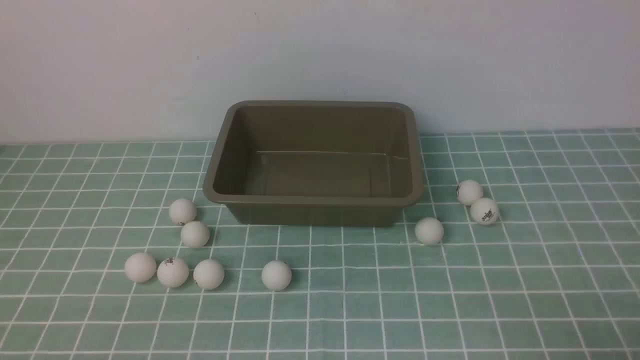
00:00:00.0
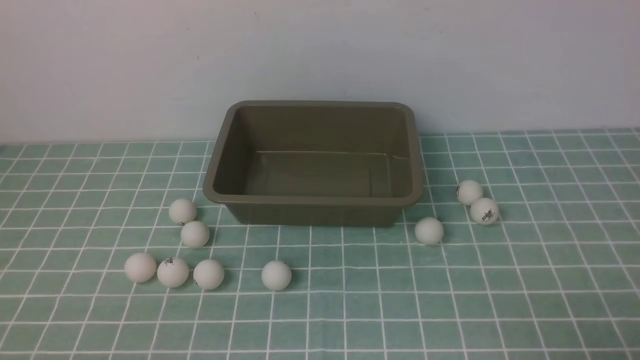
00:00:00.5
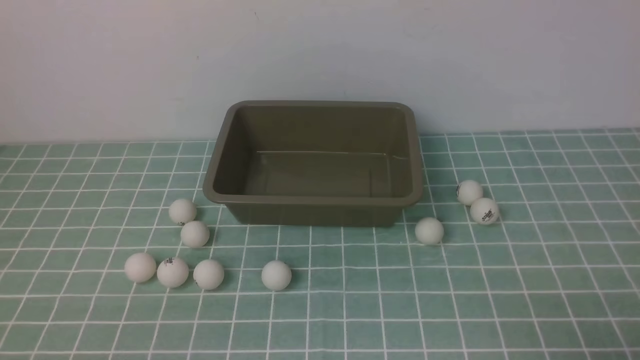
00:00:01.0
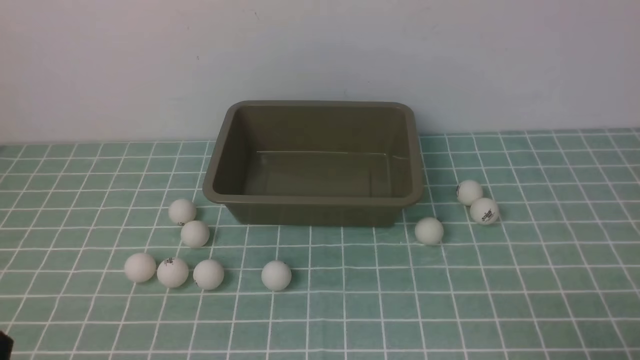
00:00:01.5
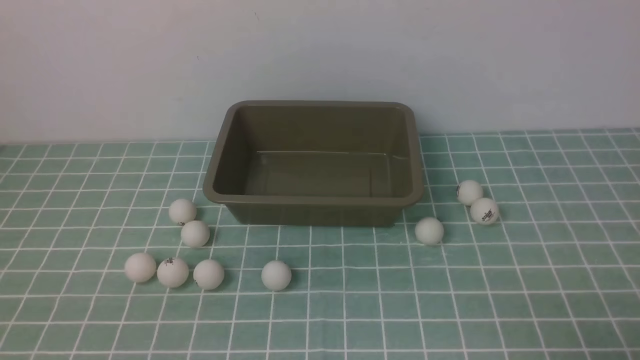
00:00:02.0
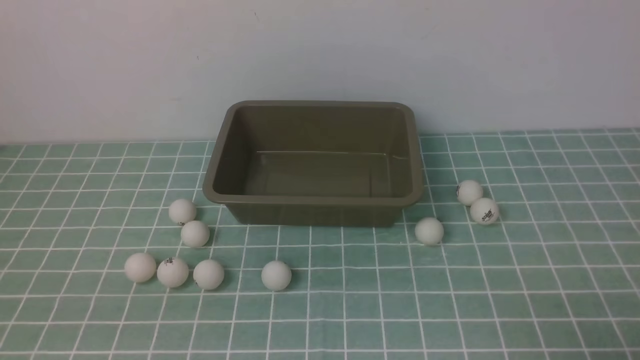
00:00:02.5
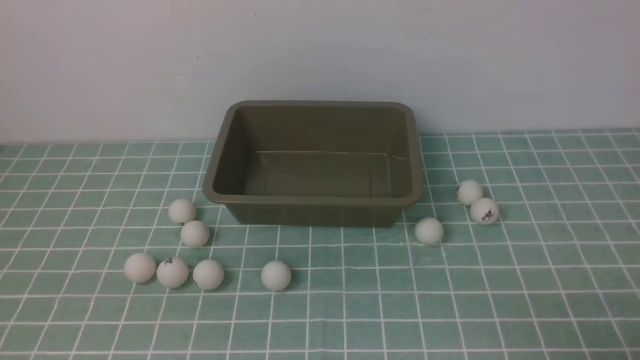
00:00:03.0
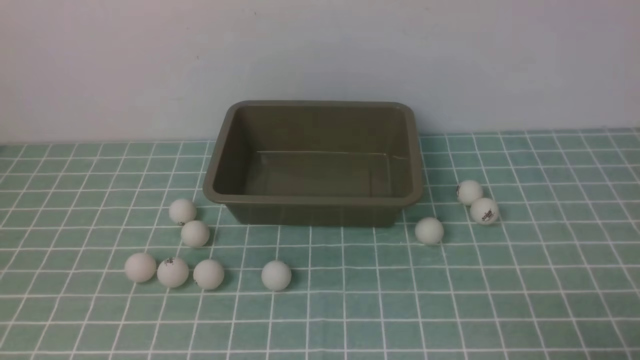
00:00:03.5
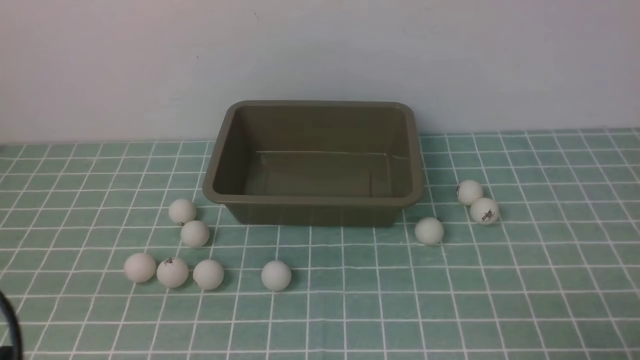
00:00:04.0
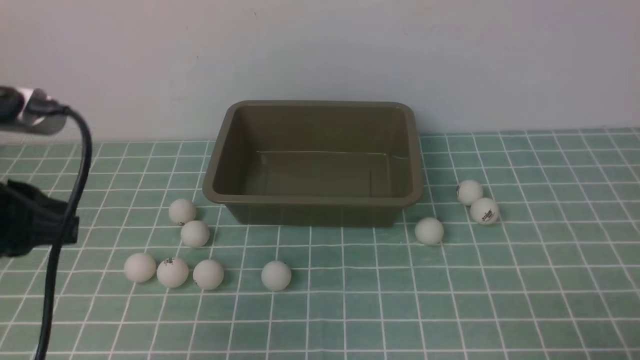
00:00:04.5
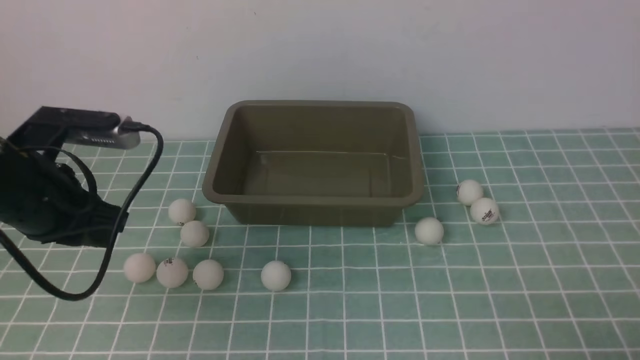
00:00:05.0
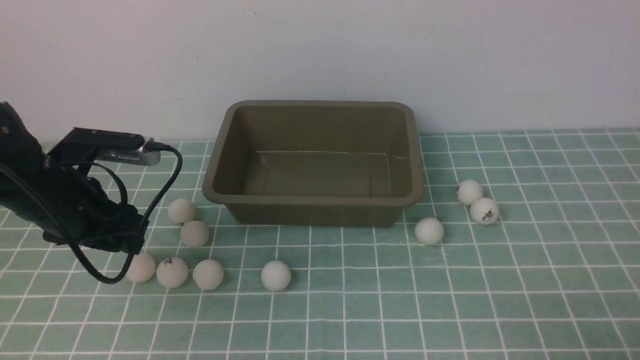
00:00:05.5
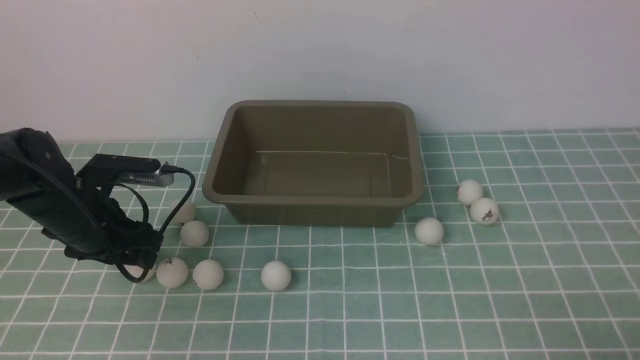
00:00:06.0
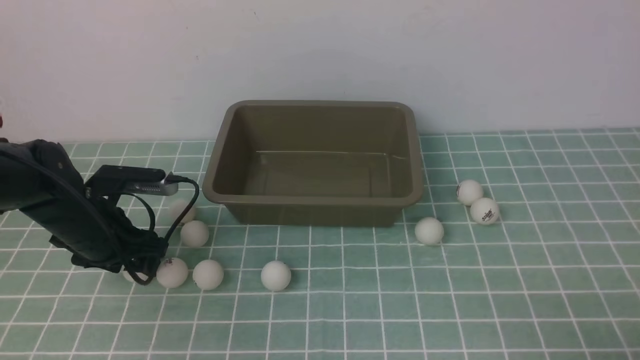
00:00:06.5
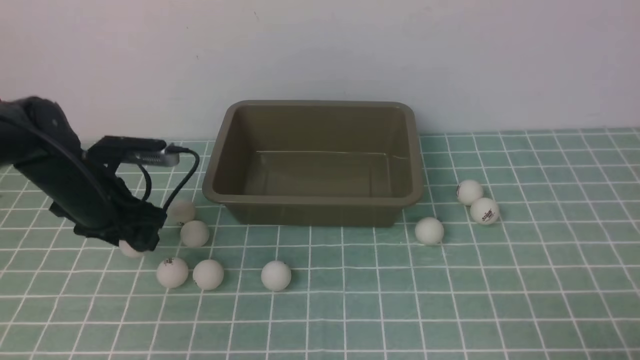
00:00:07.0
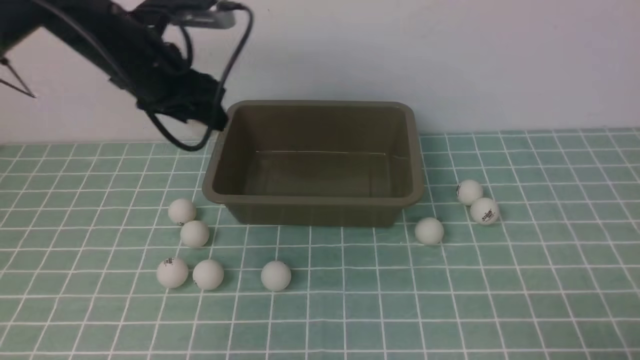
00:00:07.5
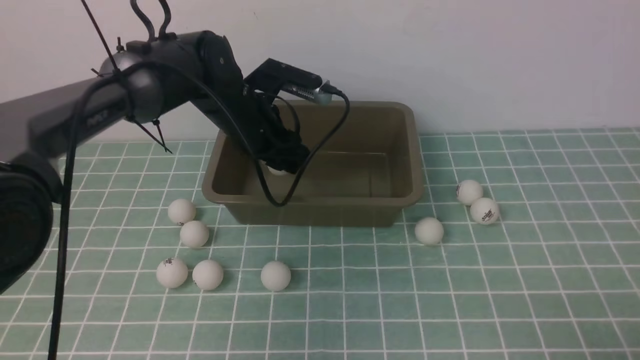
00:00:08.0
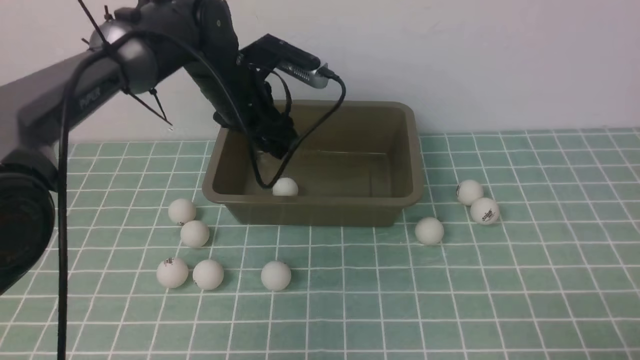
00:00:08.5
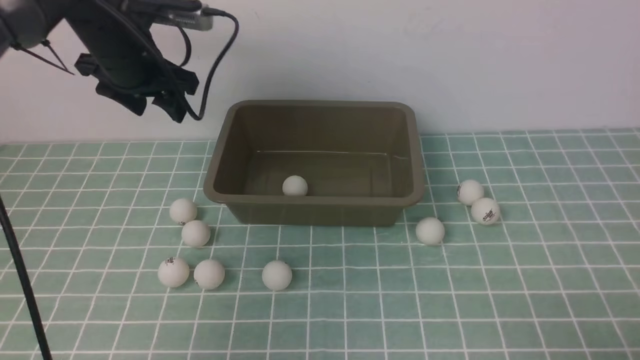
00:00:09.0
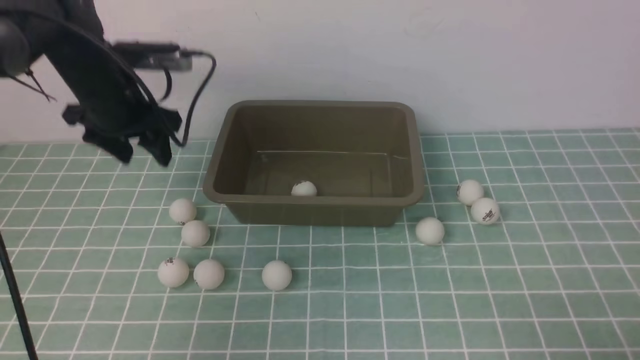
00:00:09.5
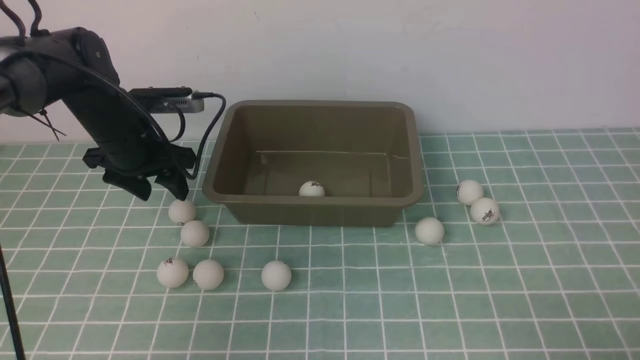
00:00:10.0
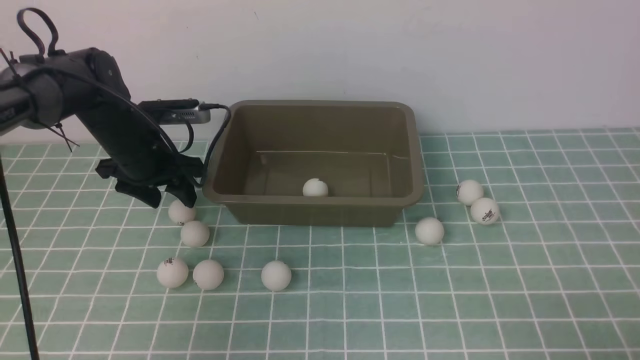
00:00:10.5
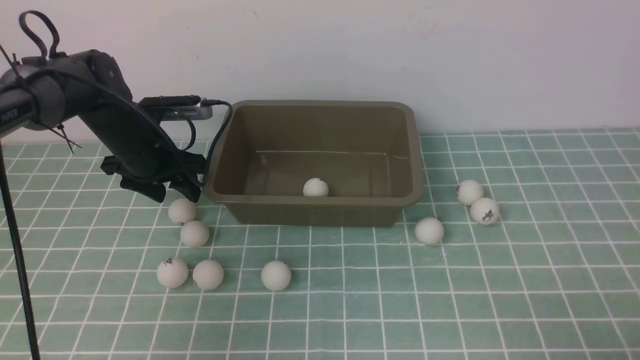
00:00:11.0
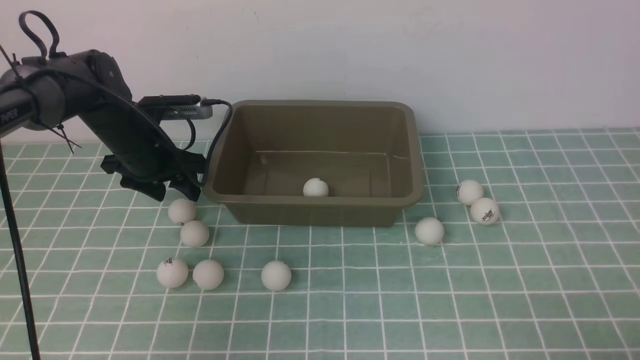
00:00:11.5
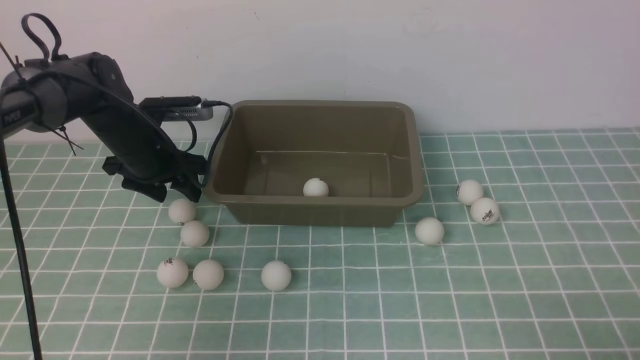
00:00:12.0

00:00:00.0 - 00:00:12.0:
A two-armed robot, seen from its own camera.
Step, 00:00:00.0 - 00:00:07.0: use the left arm to clamp the table tennis ball closest to it.
Step, 00:00:07.5 - 00:00:08.0: use the left arm to put the table tennis ball into the box.
00:00:04.0 - 00:00:06.0: The left gripper heads forward and downward, covering about 30 cm, and opens its fingers.
00:00:06.0 - 00:00:08.0: The left gripper is displaced to the right, forward and upward by roughly 20 cm.
00:00:08.0 - 00:00:10.0: The left gripper moves to the left, roughly 15 cm.
00:00:10.0 - 00:00:12.0: The grippers move only a little.

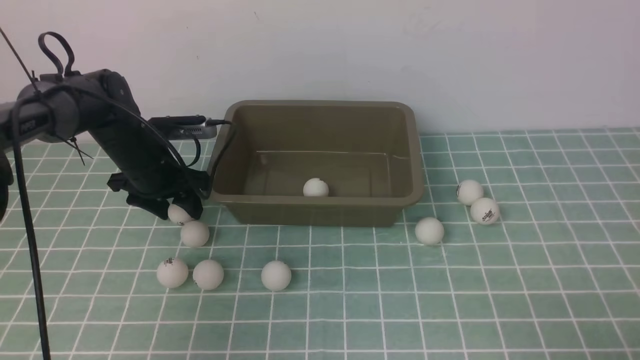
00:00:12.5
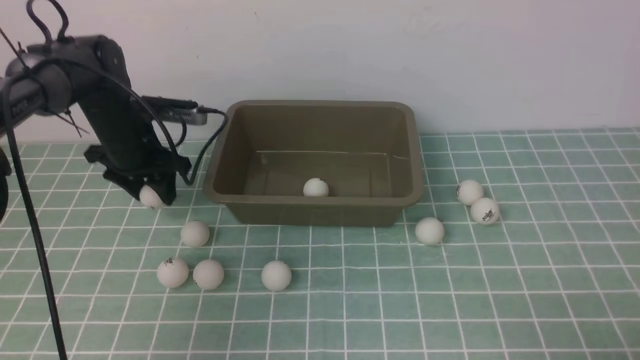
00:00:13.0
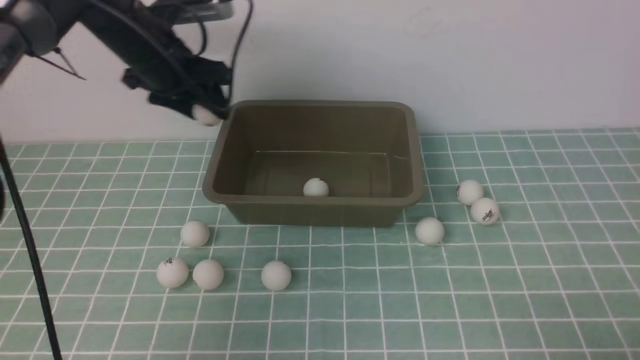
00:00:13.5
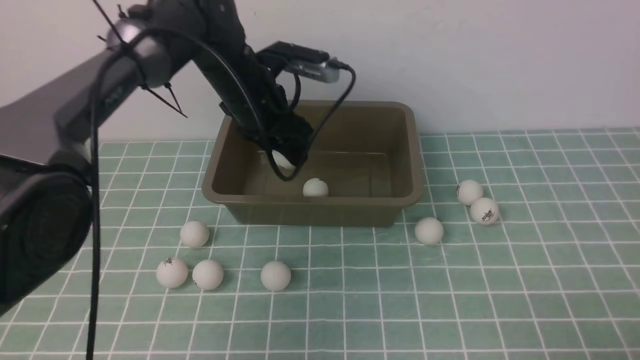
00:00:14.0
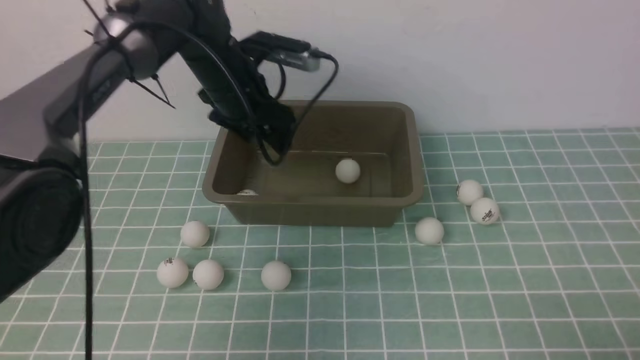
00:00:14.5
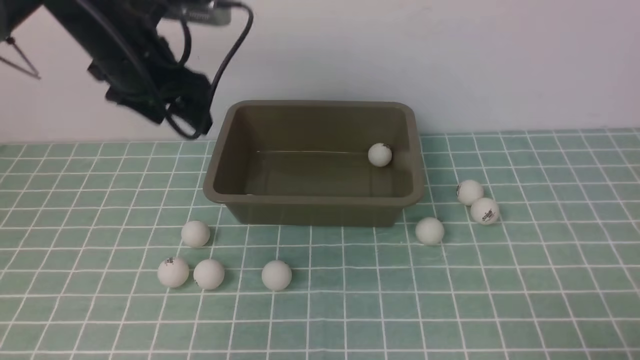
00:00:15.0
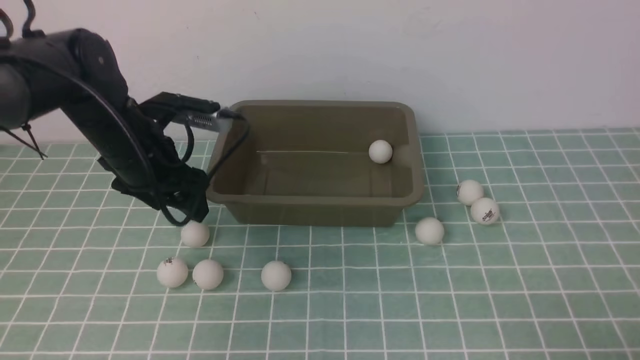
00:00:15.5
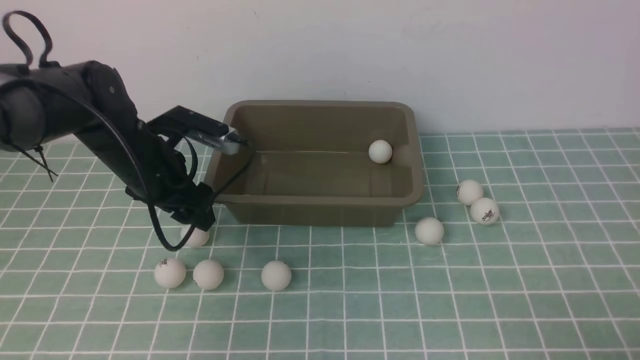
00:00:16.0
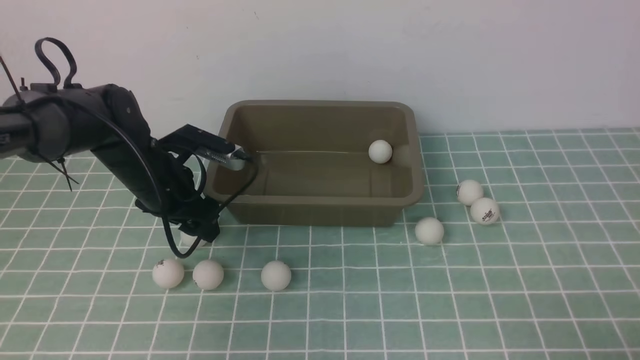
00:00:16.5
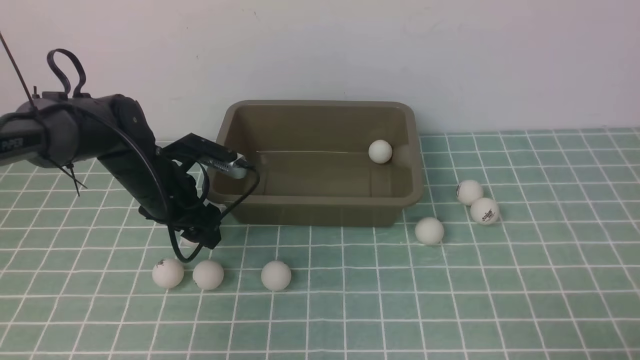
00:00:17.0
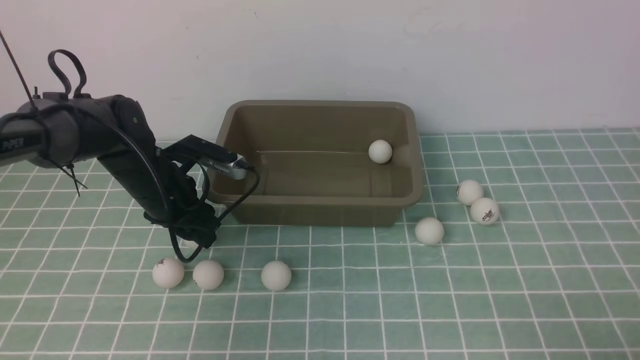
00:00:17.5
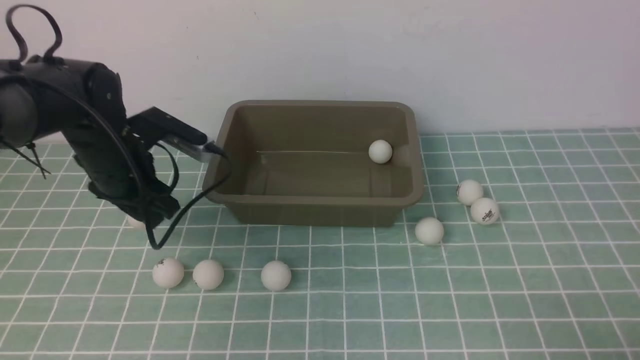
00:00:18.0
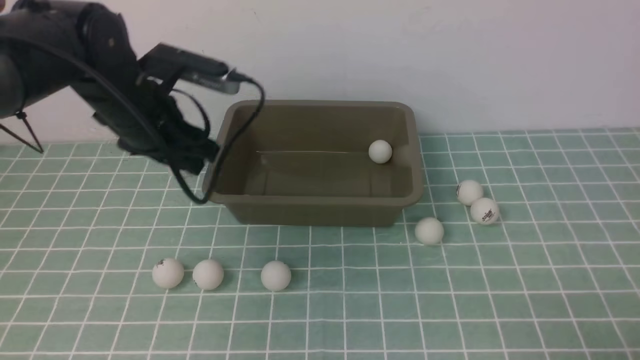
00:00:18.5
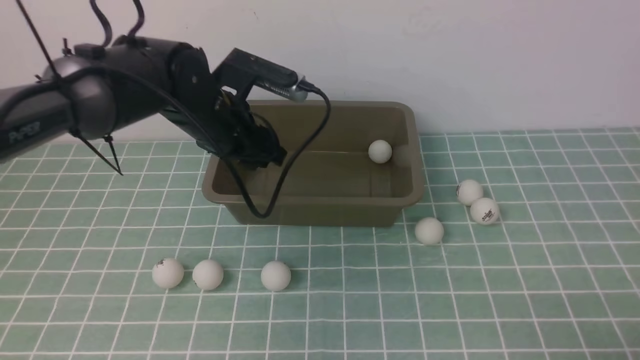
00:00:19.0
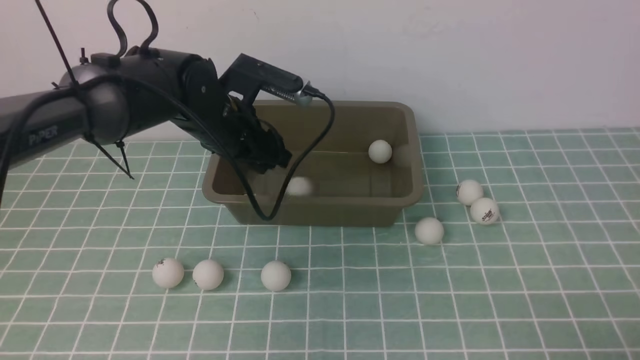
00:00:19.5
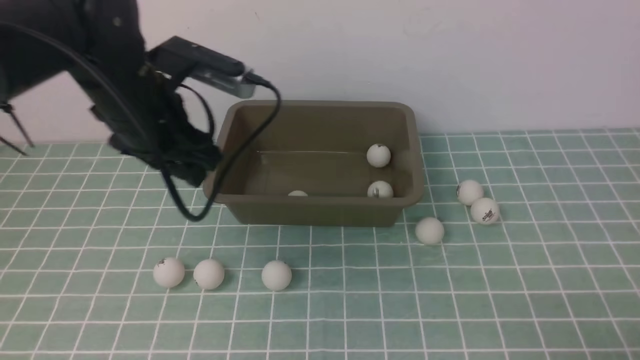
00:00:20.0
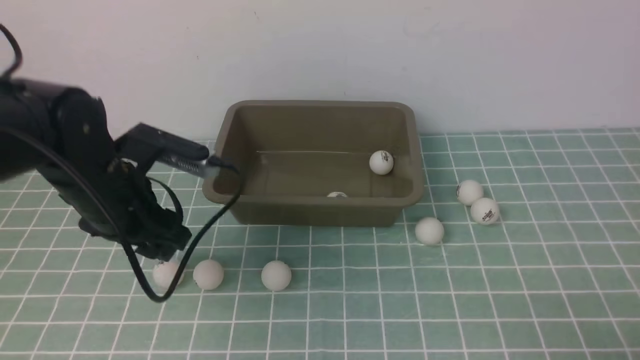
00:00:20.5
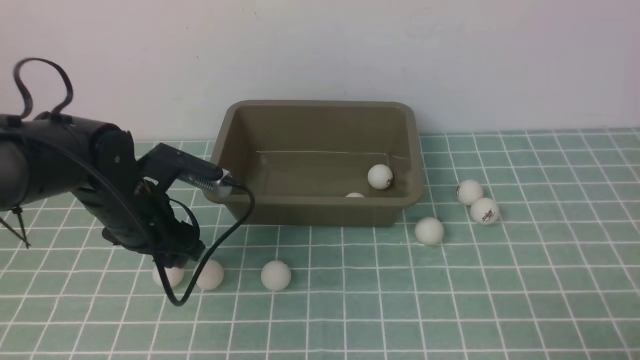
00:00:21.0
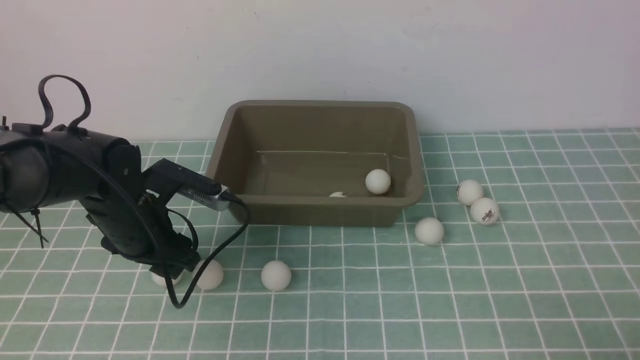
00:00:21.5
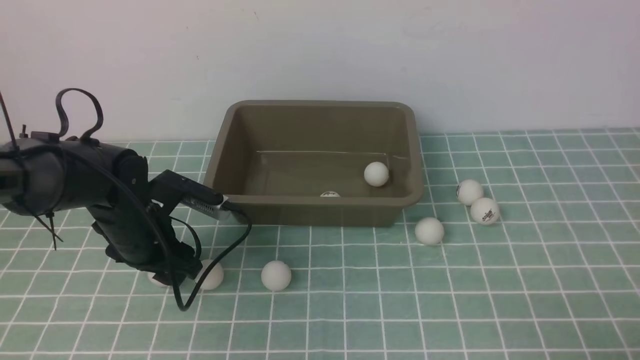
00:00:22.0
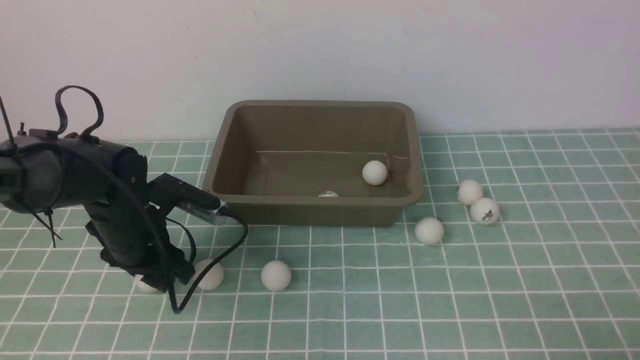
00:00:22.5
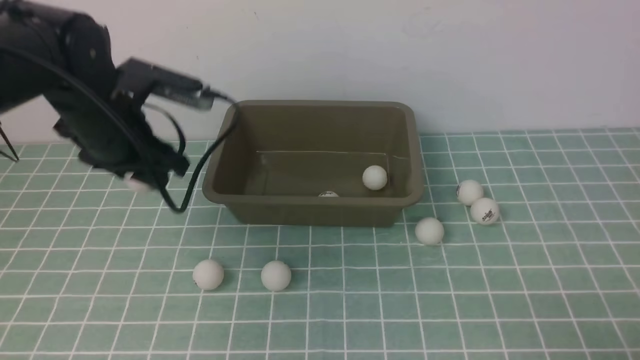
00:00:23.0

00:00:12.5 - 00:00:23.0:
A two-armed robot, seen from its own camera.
Step, 00:00:13.5 - 00:00:14.0: use the left arm to put the table tennis ball into the box.
Step, 00:00:15.0 - 00:00:17.5: use the left arm to clamp the table tennis ball closest to it.
Step, 00:00:18.0 - 00:00:19.5: use the left arm to put the table tennis ball into the box.
Step, 00:00:20.0 - 00:00:22.5: use the left arm to clamp the table tennis ball closest to it.
00:00:12.5 - 00:00:14.5: The left gripper shifts about 15 cm to the right and upward.
00:00:14.5 - 00:00:16.5: The left gripper travels downward, to the left and backward by some 15 cm.
00:00:16.5 - 00:00:19.0: The left gripper heads to the right and upward, covering approximately 10 cm.
00:00:19.0 - 00:00:21.0: The left gripper heads to the left, backward and downward, covering some 10 cm.
00:00:21.0 - 00:00:23.0: The left gripper shifts about 10 cm upward.
